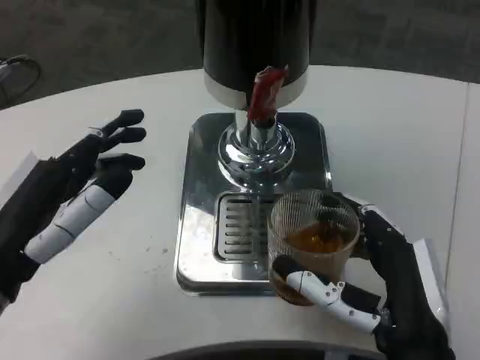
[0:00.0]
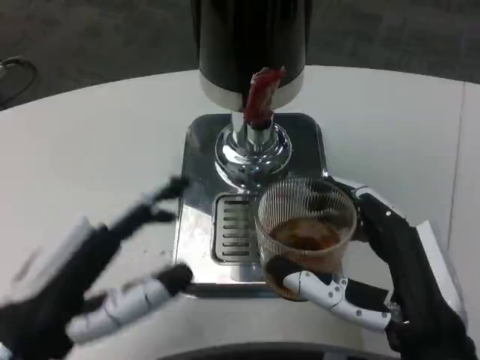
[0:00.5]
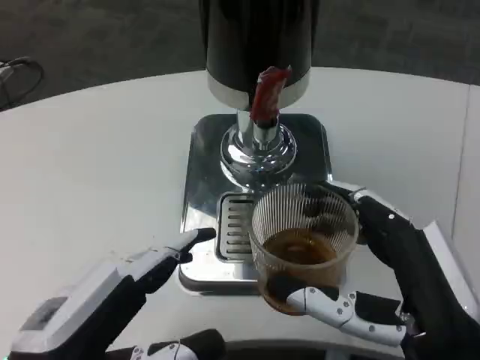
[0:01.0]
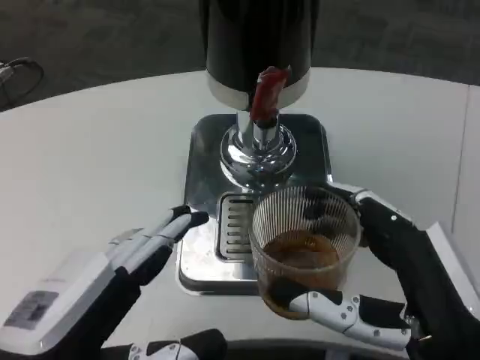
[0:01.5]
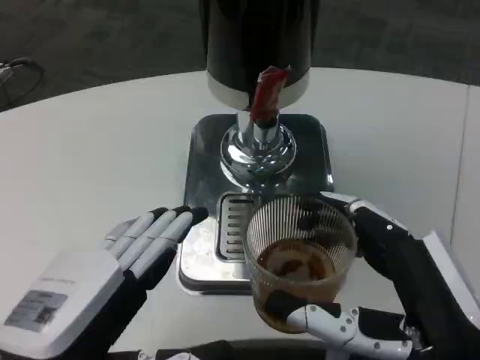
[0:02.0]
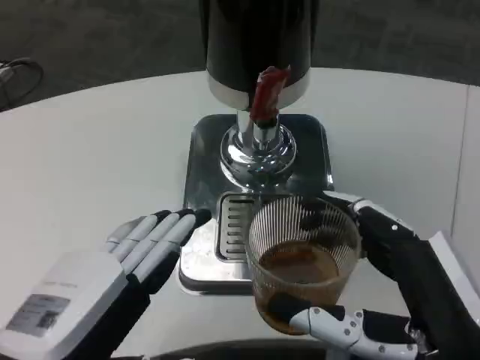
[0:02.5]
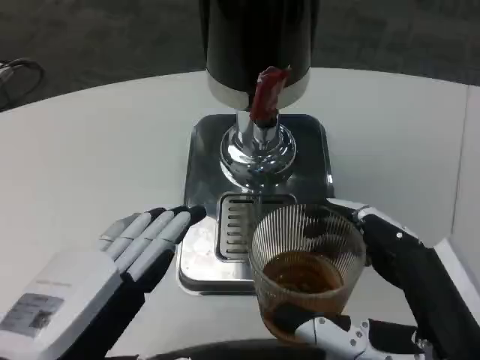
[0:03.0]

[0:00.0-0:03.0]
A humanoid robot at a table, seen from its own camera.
Task of the whole recording: Grasp the cup under the faucet to collect the drink, then remove the cup.
0:00.0 to 0:01.5: The right hand ends up roughly 5 cm from where it was. The left hand goes some 5 cm backward.
0:01.5 to 0:03.0: The hands move only a little.

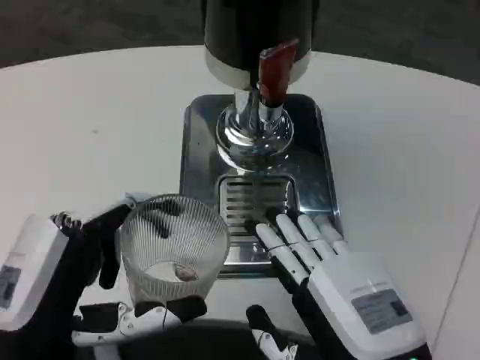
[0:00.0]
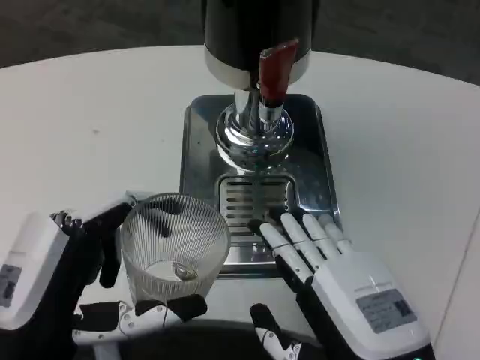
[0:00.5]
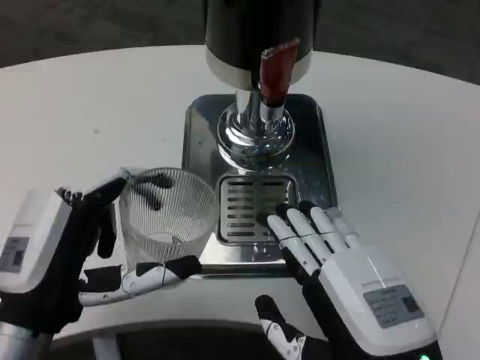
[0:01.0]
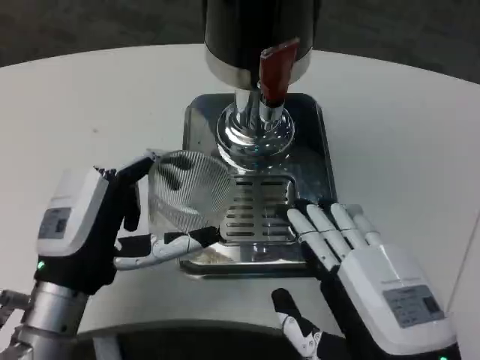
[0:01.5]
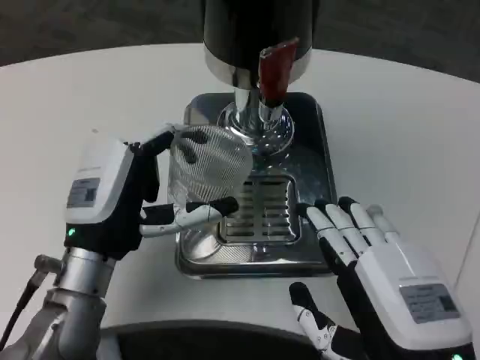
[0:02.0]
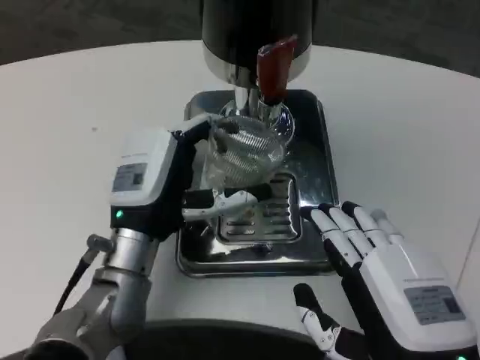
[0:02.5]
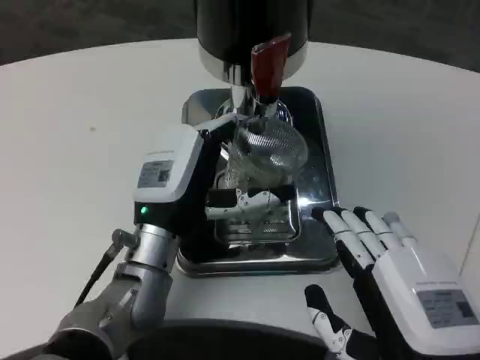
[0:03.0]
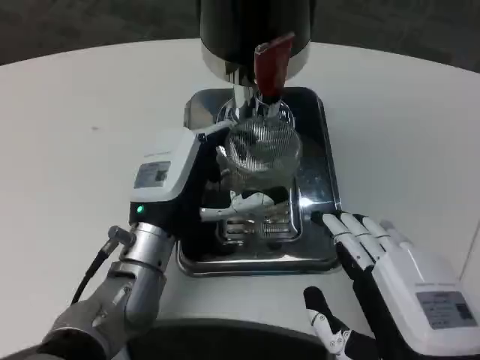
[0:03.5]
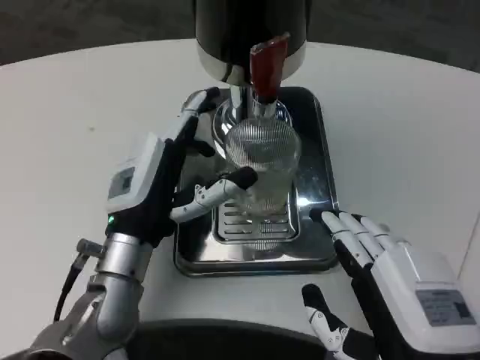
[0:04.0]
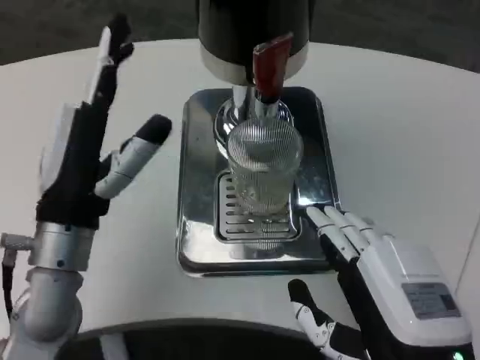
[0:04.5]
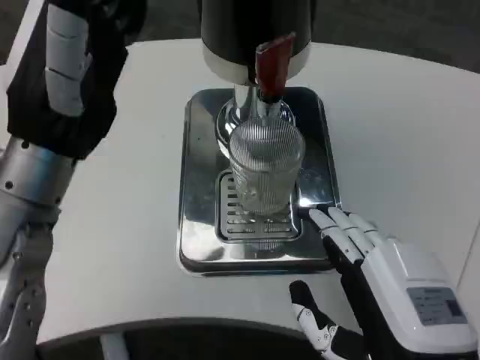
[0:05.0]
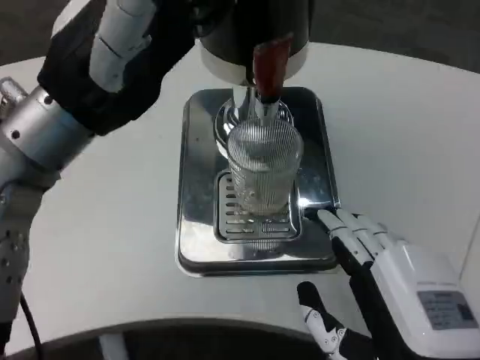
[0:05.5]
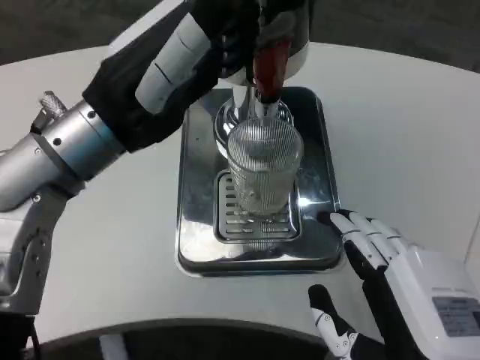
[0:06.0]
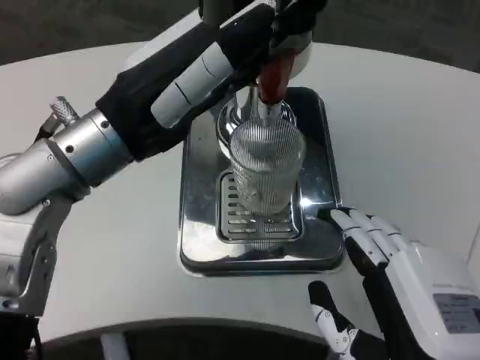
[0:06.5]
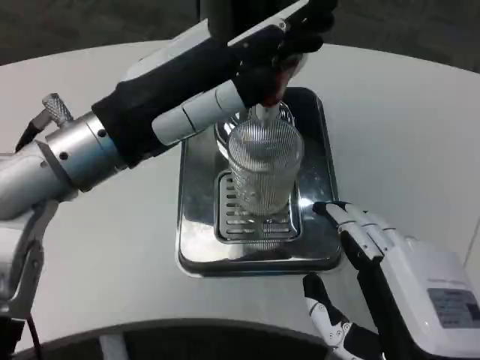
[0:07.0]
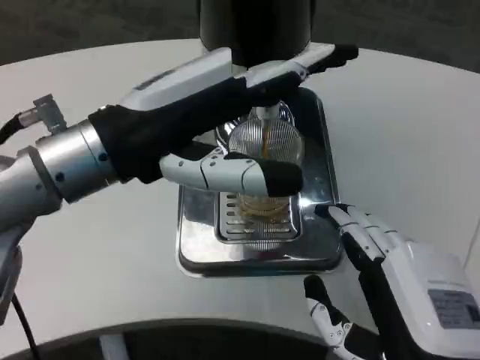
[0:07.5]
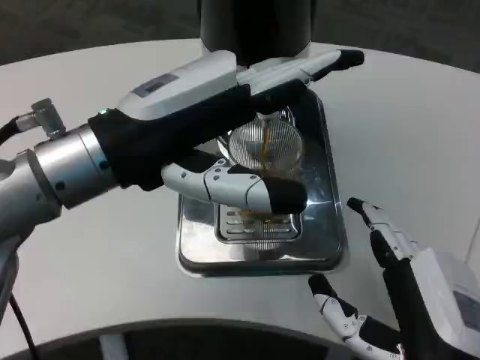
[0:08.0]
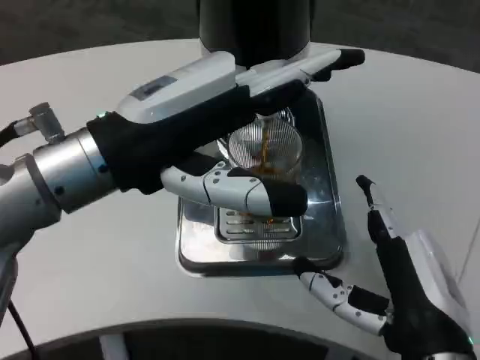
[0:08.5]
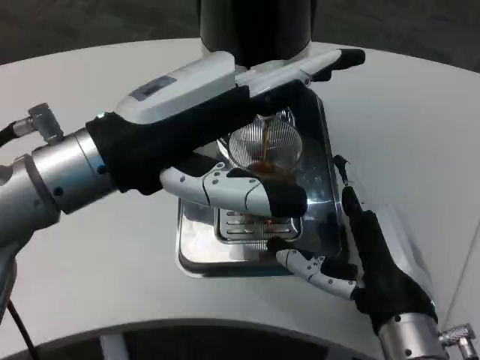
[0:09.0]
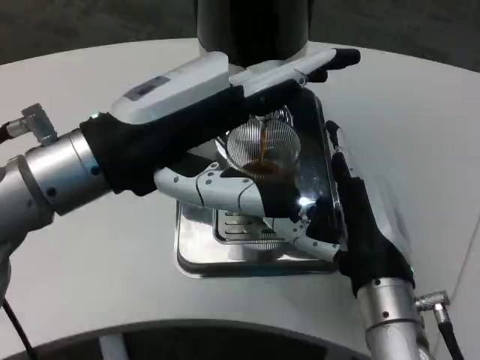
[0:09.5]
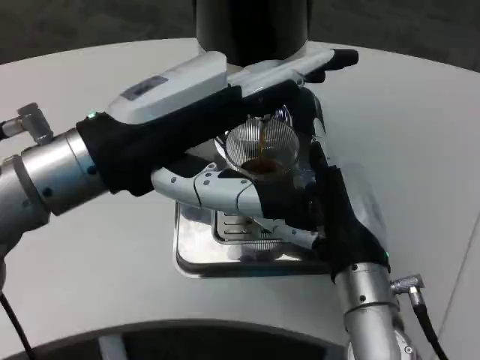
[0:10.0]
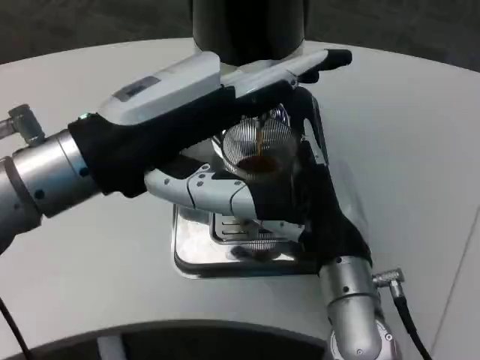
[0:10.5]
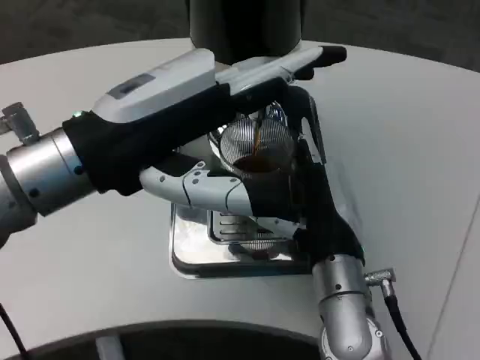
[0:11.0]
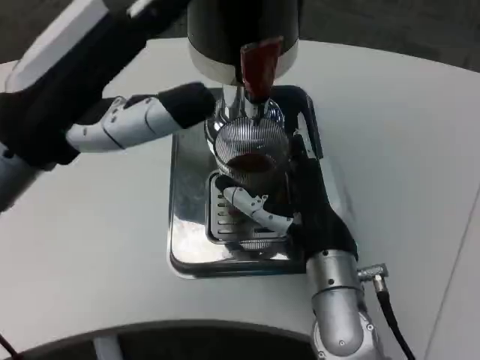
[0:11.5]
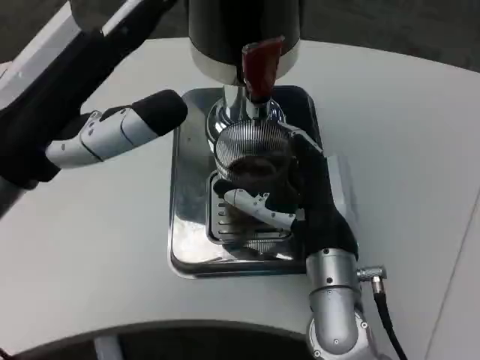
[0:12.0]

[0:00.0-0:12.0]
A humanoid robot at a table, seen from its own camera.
Task of the whole recording: Grasp the cup under the faucet to collect the drink, then remove the cup.
0:00.0 to 0:02.0: The left hand goes some 10 cm forward.
0:04.0 to 0:06.0: The left hand moves upward, some 15 cm.
0:08.0 to 0:10.0: The right hand shifts some 10 cm forward.
0:10.0 to 0:12.0: The left hand changes place by approximately 5 cm.

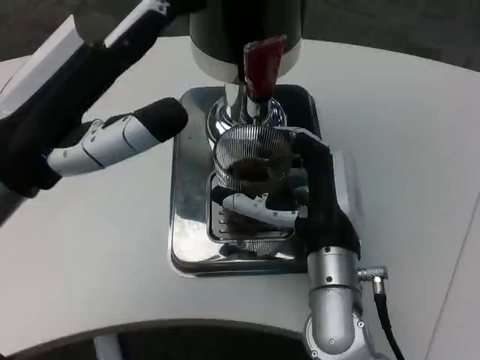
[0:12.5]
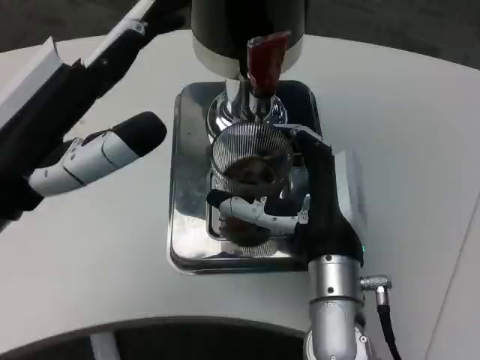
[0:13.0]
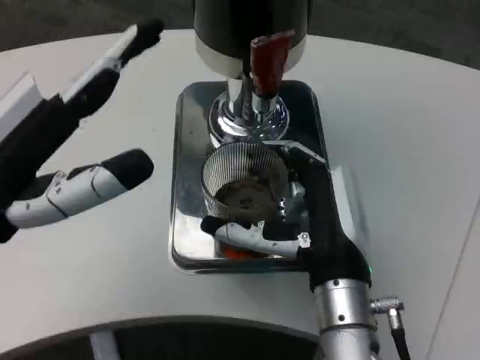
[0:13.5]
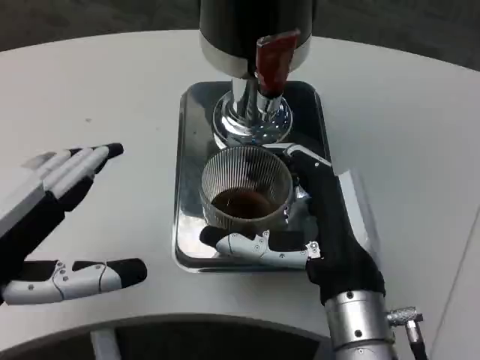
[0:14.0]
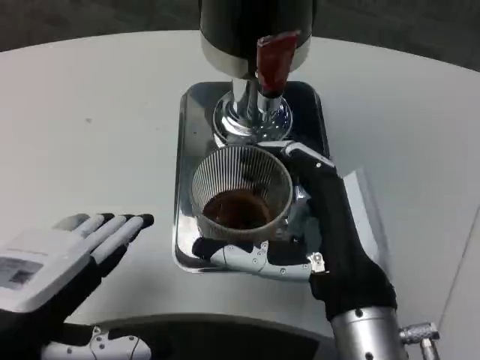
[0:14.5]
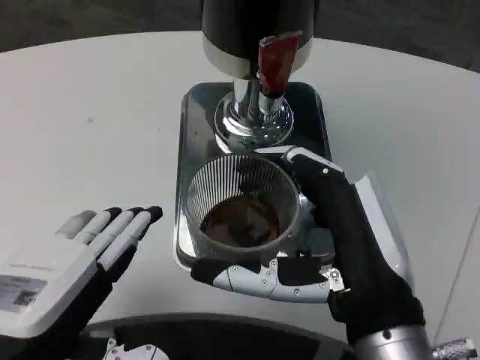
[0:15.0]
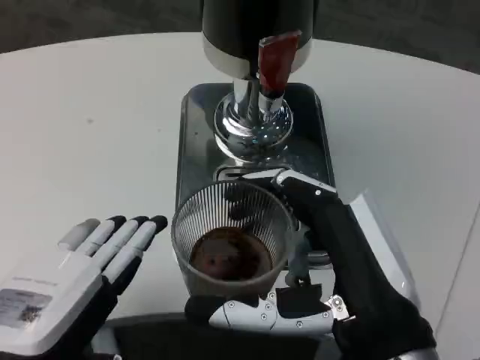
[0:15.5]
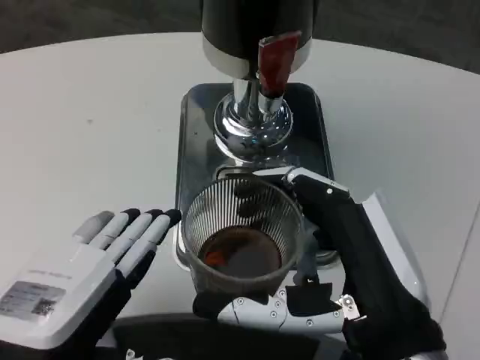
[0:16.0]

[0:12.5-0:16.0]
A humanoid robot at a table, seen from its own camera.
Task of the whole recording: Grasp the cup under the faucet to collect the drink, then remove the cup.
0:12.5 to 0:14.5: The left hand goes approximately 10 cm backward and downward. Meanwhile the right hand travels backward by some 10 cm.
0:14.5 to 0:16.0: The right hand heads backward, covering roughly 5 cm.

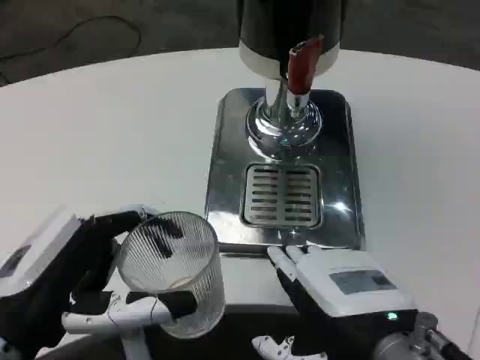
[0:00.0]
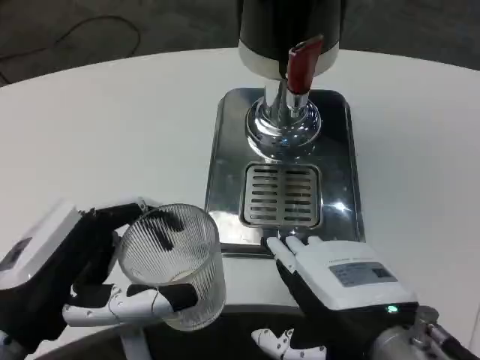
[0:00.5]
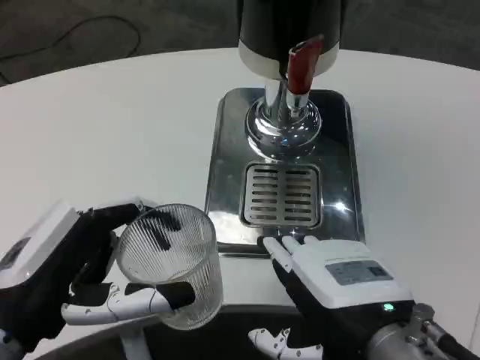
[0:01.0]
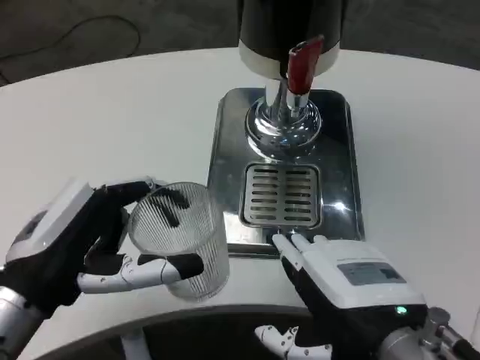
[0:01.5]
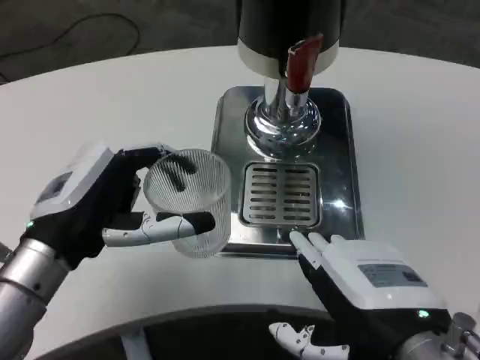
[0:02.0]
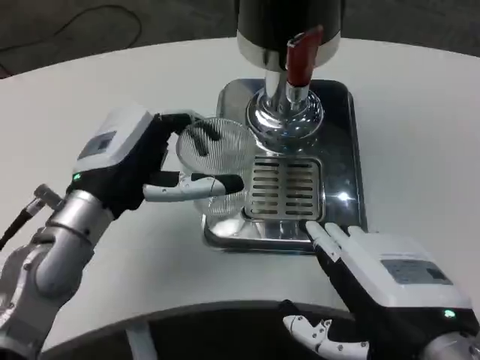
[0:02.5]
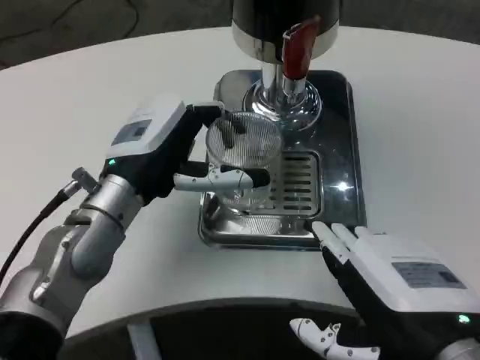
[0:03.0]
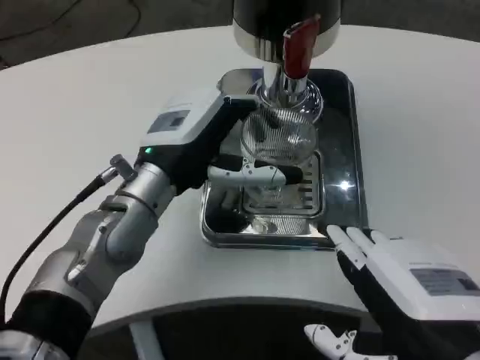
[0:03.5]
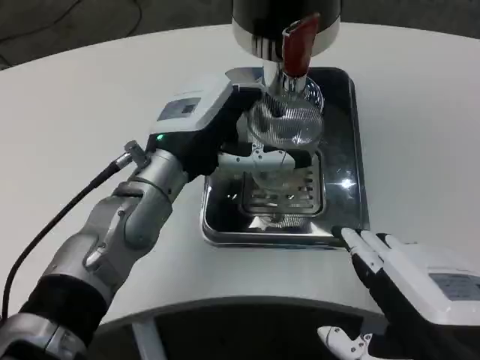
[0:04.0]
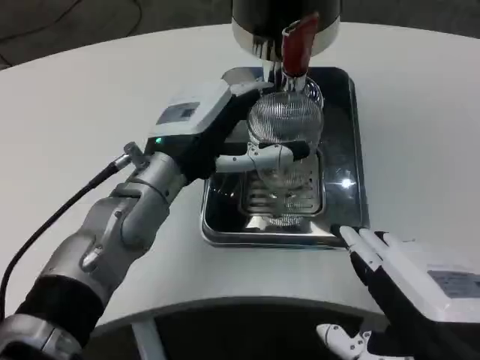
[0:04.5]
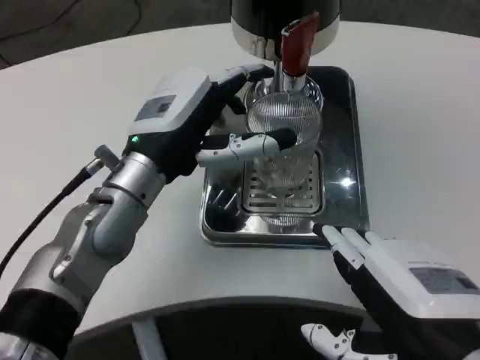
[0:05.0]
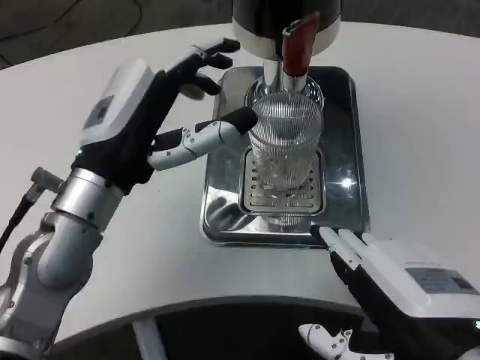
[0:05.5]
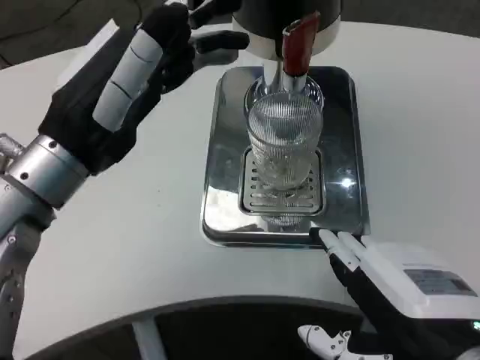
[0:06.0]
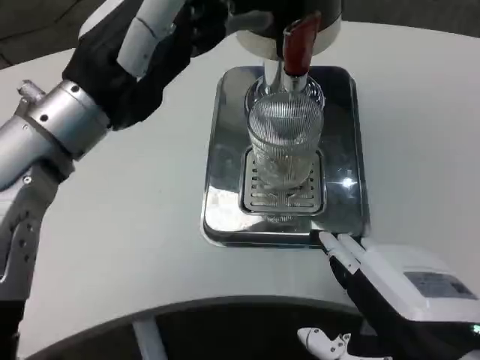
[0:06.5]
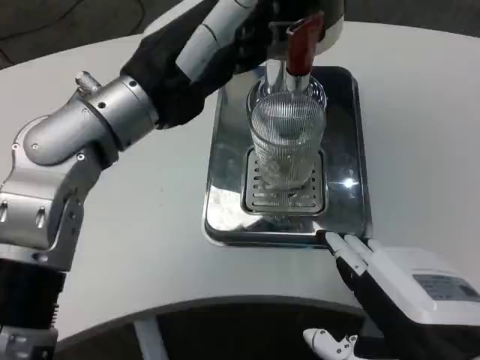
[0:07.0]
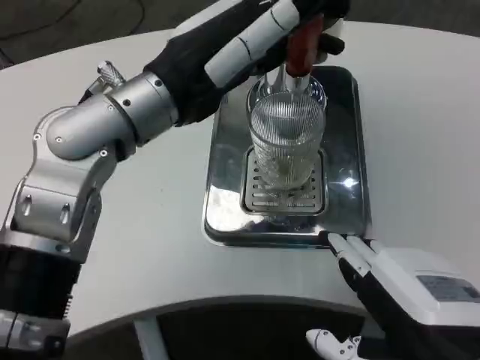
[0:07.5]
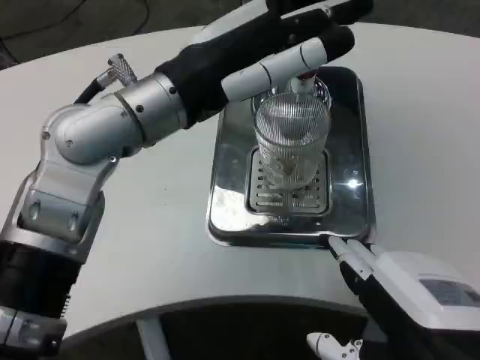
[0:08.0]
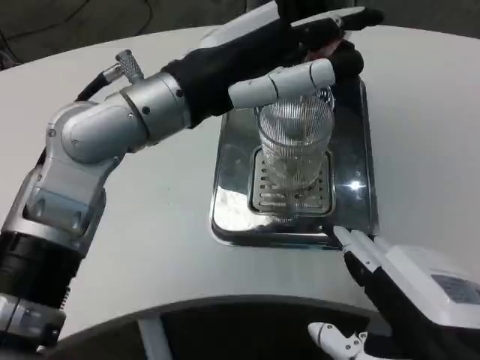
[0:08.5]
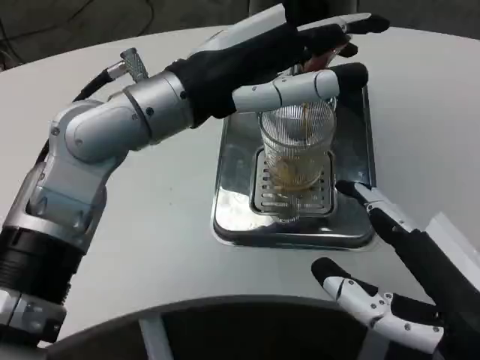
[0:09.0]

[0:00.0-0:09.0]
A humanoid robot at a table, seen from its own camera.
Task of the whole recording: Grasp the cup under the faucet to collect the drink, then remove the cup.
0:00.0 to 0:02.0: The left hand goes about 10 cm forward.
0:02.0 to 0:04.5: The left hand heads forward and to the right, covering roughly 15 cm.
0:04.5 to 0:07.0: The left hand travels upward by roughly 10 cm.
